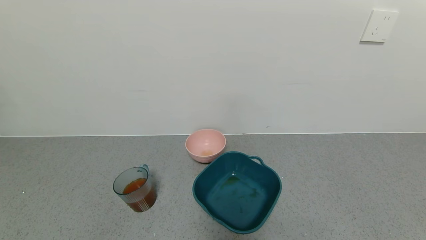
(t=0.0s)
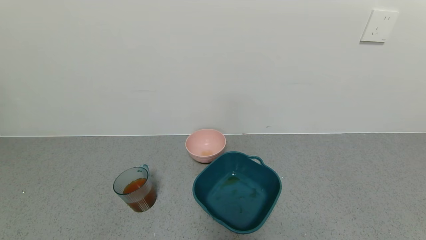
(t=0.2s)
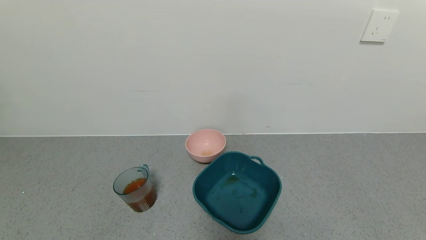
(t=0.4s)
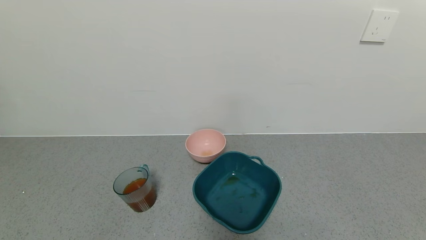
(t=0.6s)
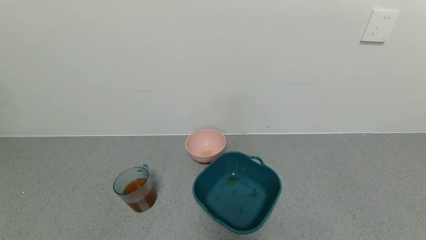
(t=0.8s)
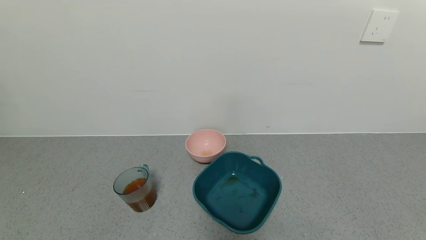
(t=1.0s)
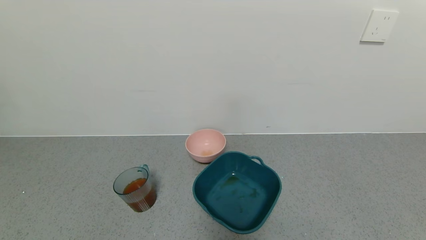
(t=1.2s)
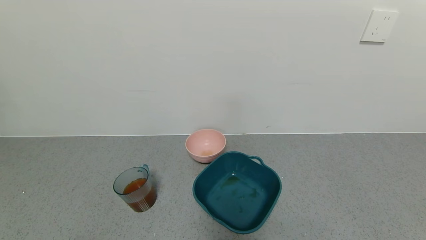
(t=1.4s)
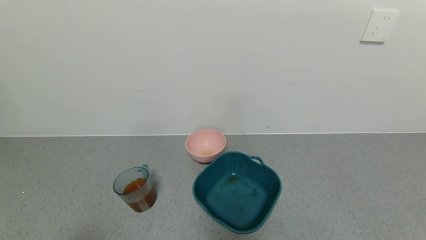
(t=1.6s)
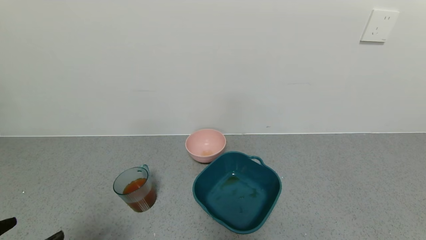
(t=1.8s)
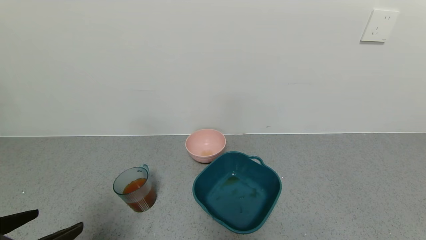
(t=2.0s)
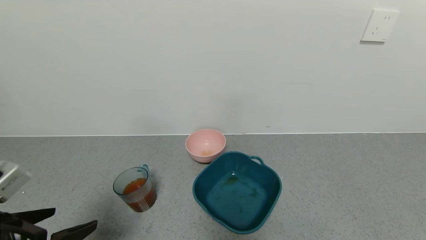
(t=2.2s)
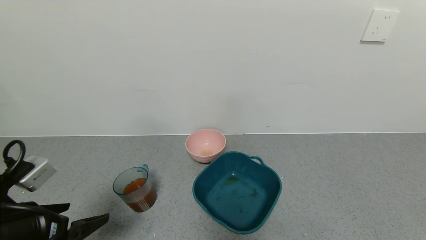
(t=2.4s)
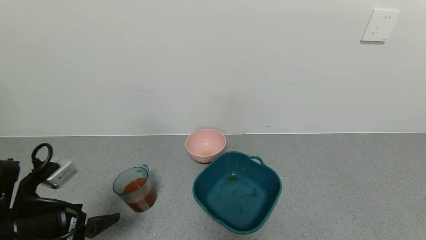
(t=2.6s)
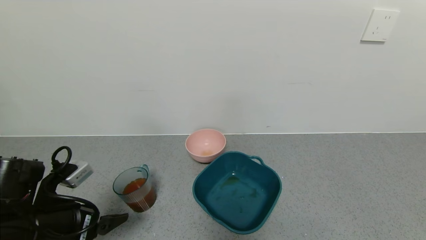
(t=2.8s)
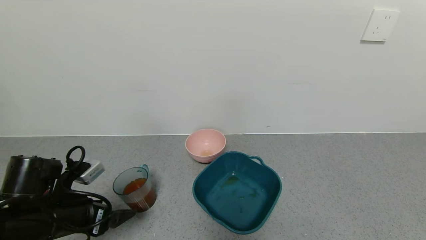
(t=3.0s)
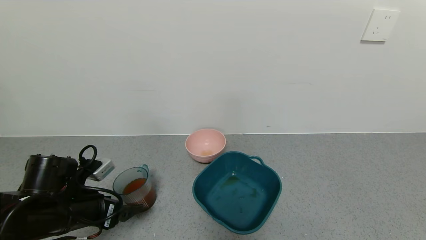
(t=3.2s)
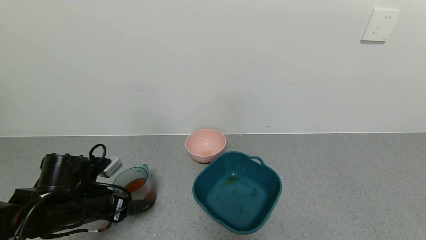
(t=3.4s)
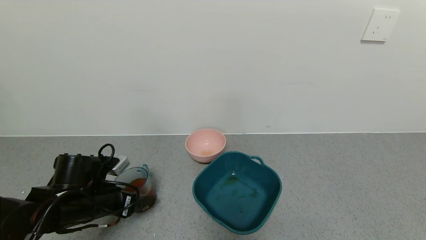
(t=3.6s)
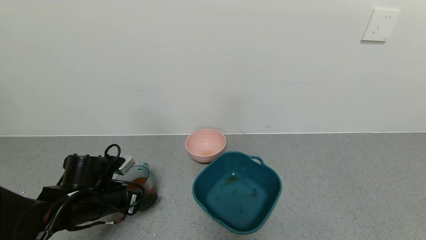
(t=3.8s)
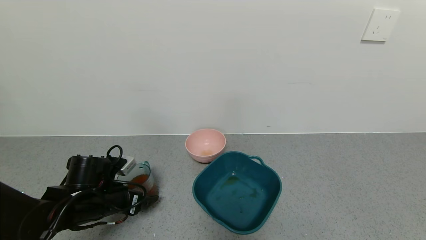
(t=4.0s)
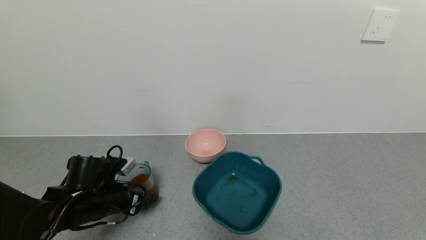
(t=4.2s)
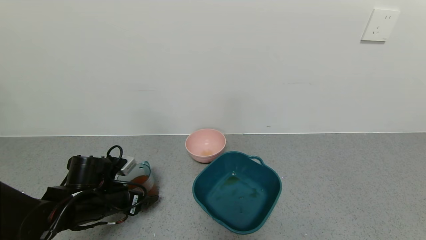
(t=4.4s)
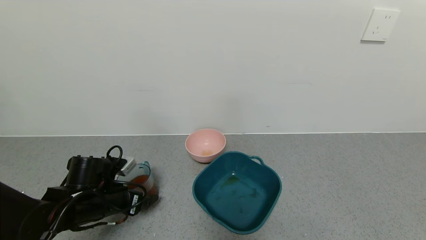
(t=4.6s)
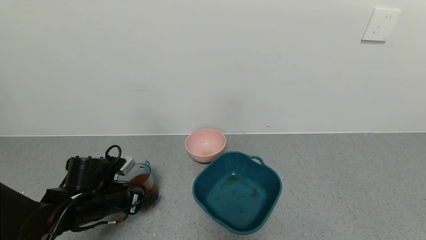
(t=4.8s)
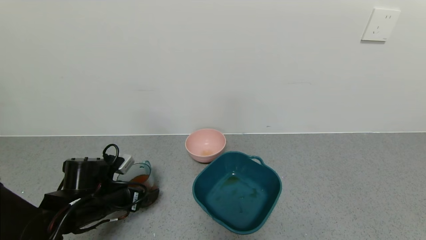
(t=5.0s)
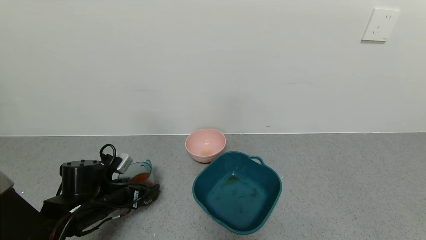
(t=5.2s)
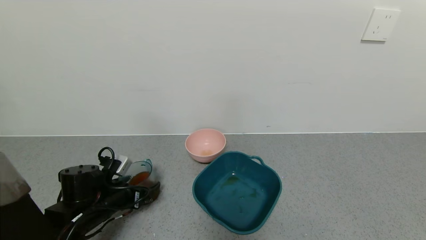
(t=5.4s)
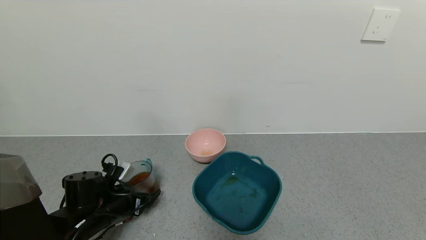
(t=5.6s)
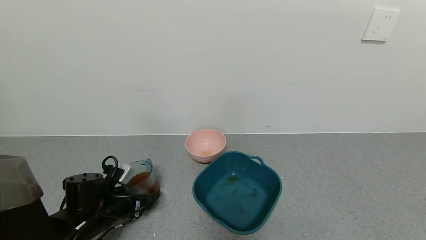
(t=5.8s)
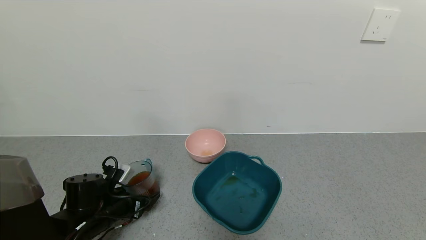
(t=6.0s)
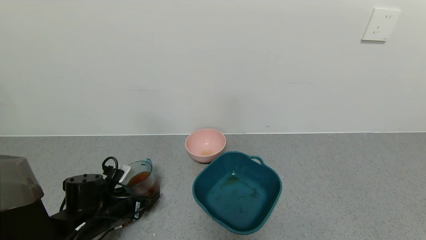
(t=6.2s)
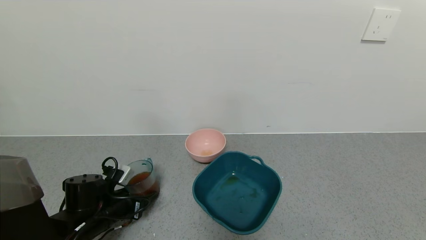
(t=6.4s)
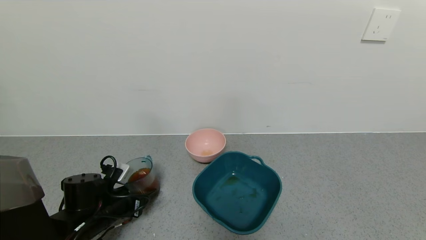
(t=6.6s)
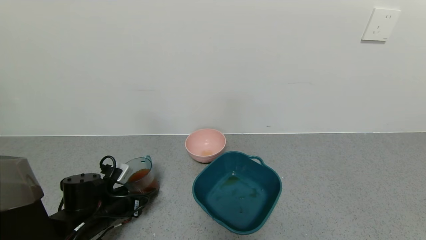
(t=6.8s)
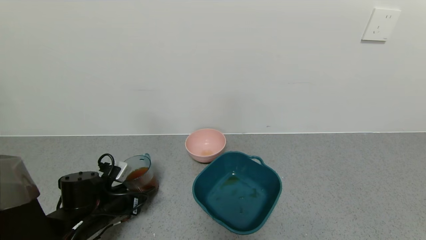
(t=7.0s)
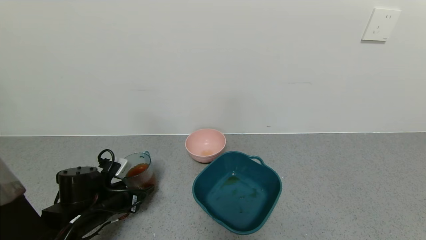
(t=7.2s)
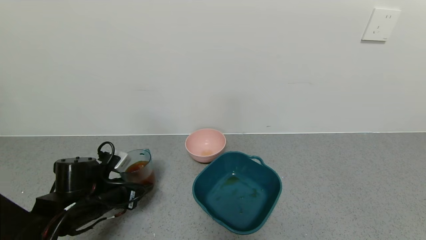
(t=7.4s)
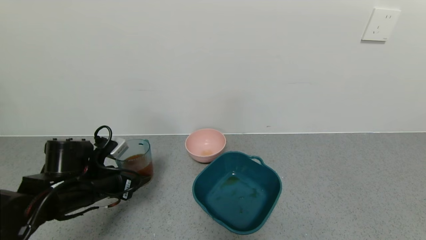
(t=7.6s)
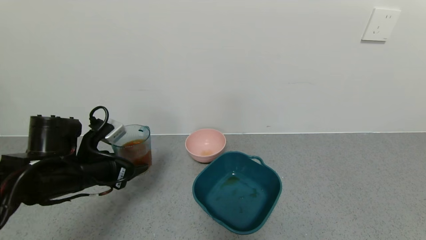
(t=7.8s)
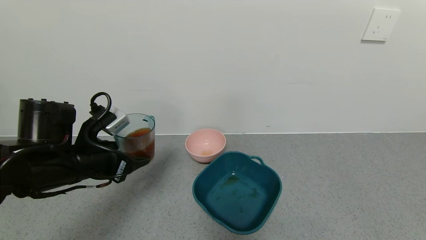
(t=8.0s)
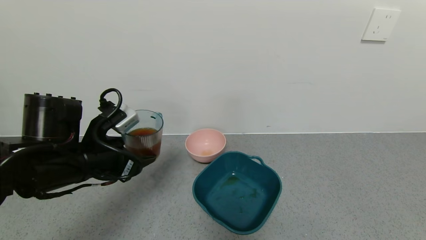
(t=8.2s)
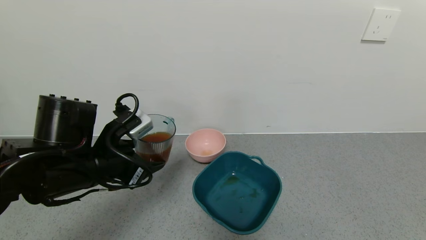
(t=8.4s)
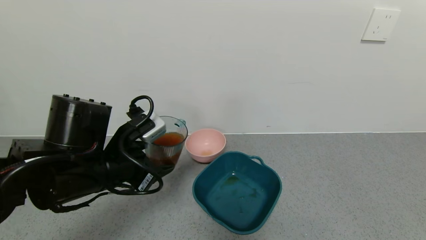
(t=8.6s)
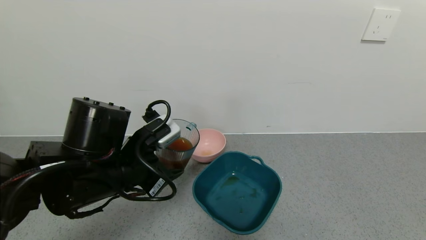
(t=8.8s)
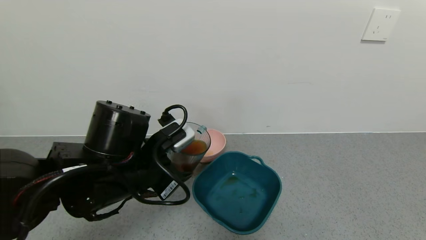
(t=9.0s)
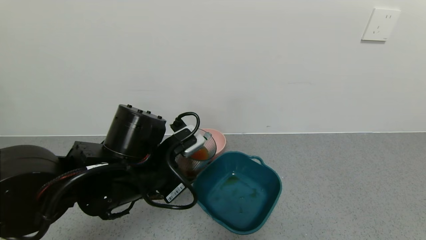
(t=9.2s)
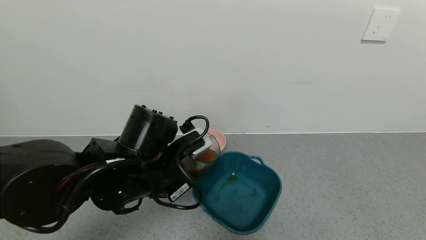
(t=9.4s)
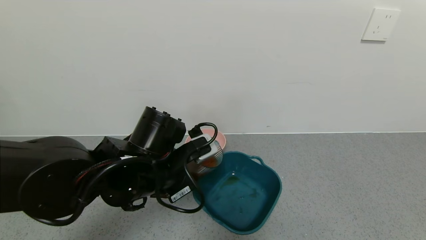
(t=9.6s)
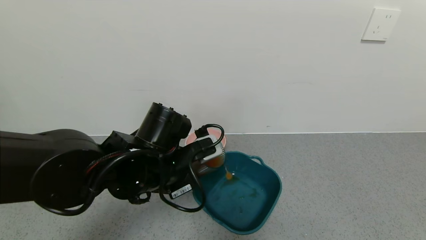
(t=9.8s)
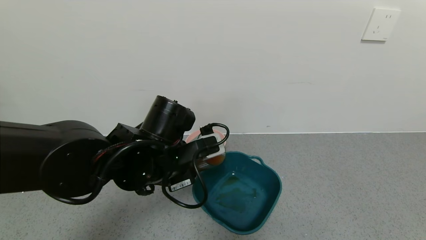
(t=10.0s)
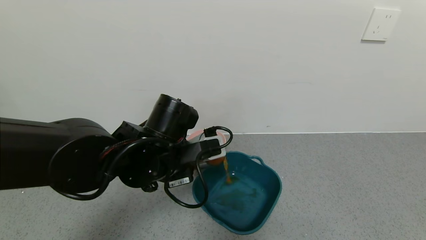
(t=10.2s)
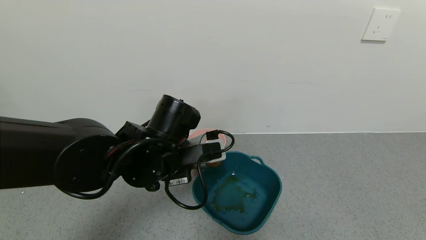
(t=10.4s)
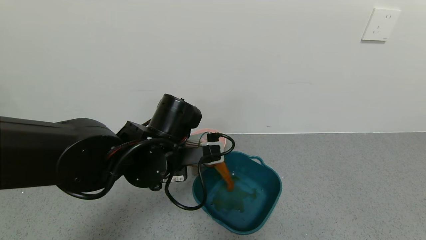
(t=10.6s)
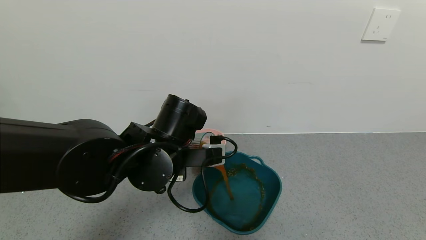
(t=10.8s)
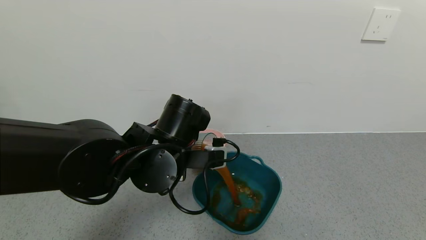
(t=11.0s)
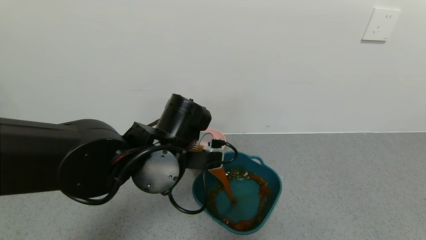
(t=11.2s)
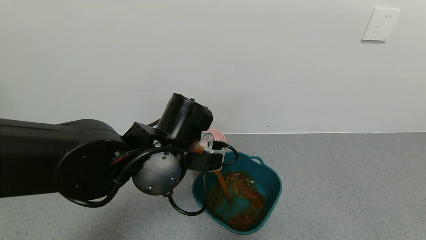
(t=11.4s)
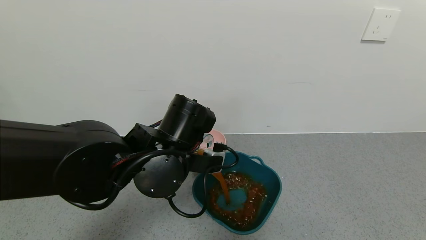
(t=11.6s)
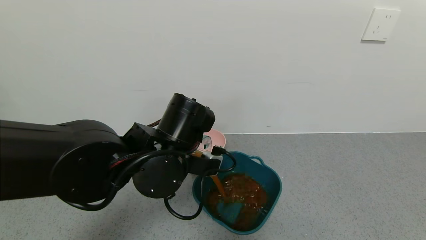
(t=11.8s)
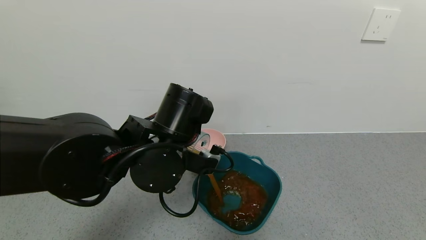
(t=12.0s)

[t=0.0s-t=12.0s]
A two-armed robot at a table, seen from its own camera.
Task of the whole recording: use a gripper to pick up the cup and pour the liquid into a bowl or tray.
Step, t=0.0s to t=7.0s: Grasp the glass of black tea with the left gripper.
t=1.6s to t=3.0s: The left gripper goes about 20 cm forward.
t=3.0s to t=4.4s: The left gripper travels forward and downward by approximately 10 cm.
t=4.4s to t=6.0s: The grippers stay close to where they were, moving slightly.
t=6.0s to t=7.6s: The left gripper shifts approximately 10 cm upward, and closes its fingers.
t=7.6s to t=9.0s: The left gripper is displaced to the right and upward by approximately 15 cm.
t=9.0s to t=10.4s: The left gripper changes place by about 5 cm.

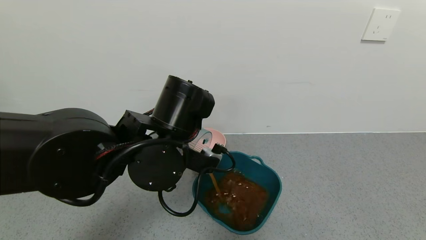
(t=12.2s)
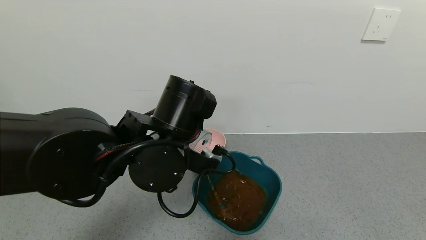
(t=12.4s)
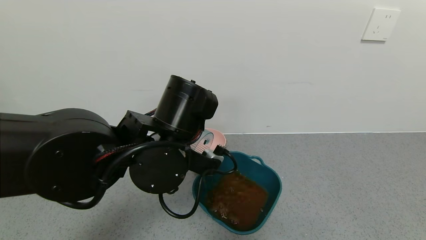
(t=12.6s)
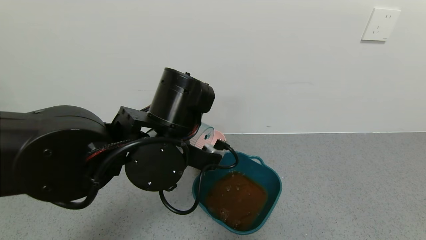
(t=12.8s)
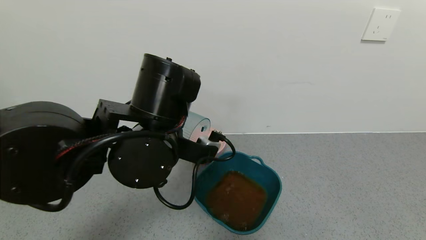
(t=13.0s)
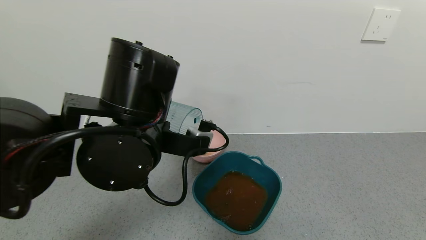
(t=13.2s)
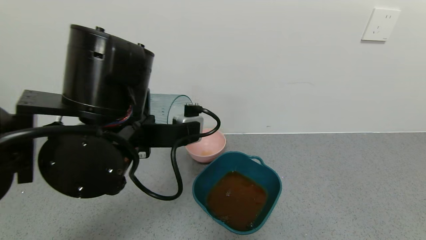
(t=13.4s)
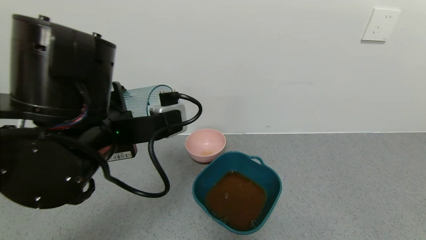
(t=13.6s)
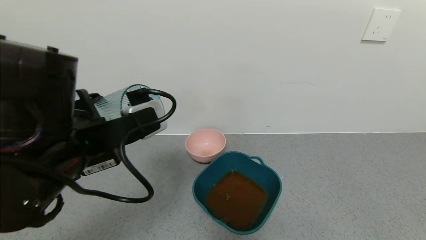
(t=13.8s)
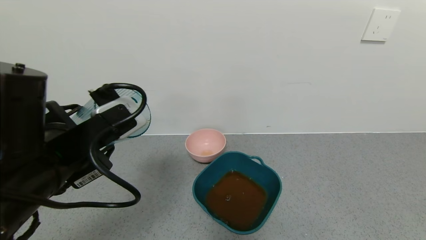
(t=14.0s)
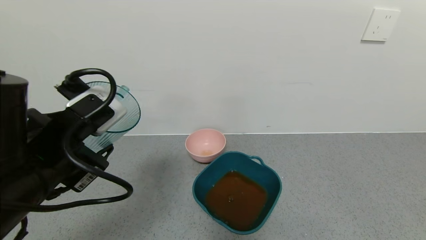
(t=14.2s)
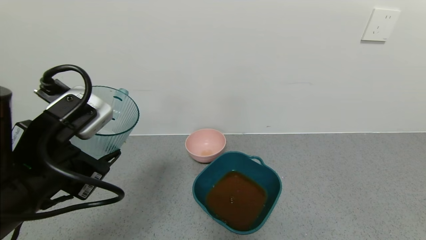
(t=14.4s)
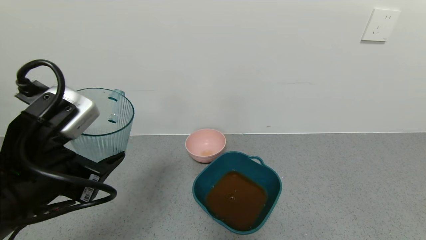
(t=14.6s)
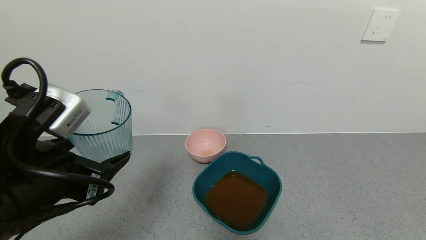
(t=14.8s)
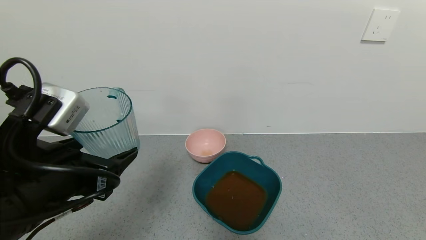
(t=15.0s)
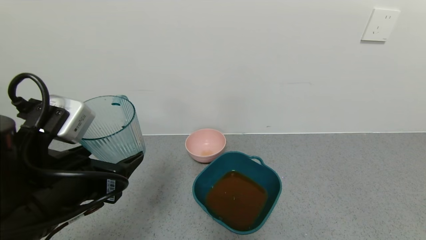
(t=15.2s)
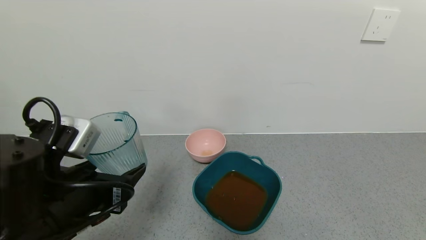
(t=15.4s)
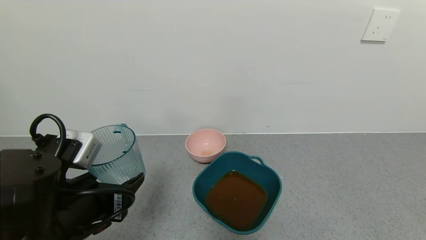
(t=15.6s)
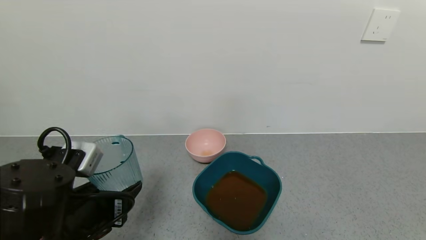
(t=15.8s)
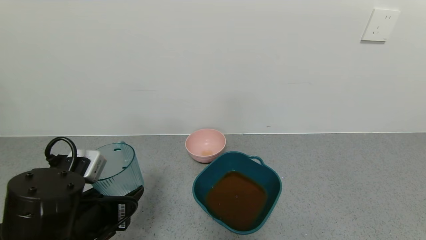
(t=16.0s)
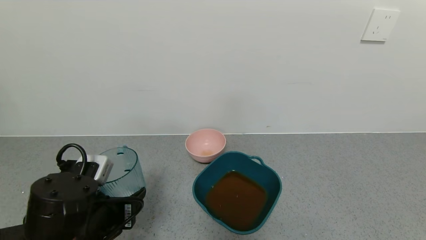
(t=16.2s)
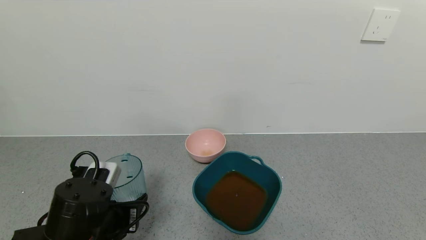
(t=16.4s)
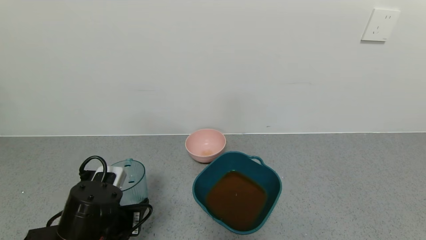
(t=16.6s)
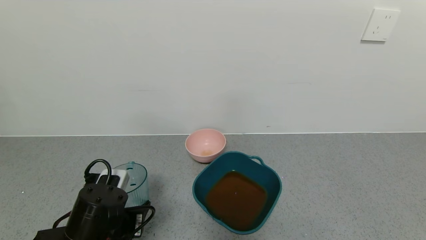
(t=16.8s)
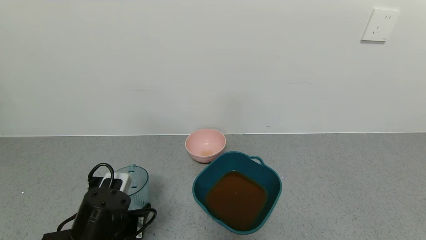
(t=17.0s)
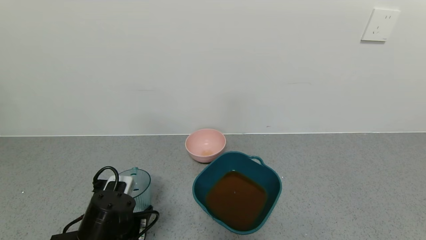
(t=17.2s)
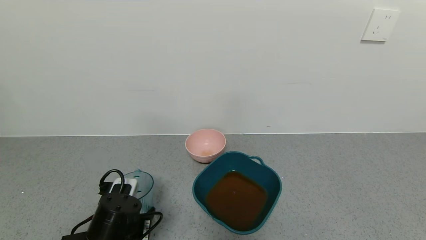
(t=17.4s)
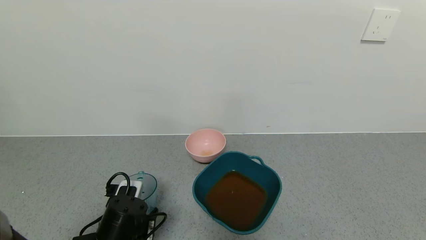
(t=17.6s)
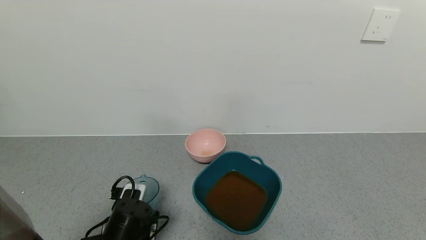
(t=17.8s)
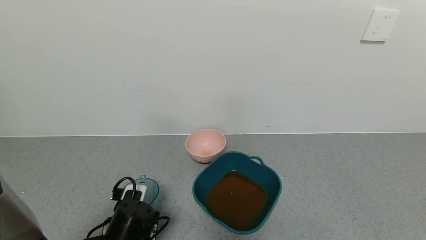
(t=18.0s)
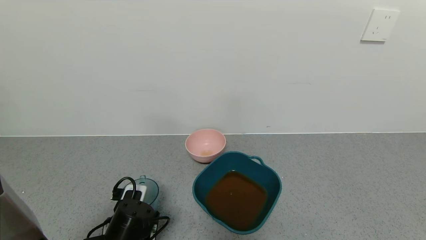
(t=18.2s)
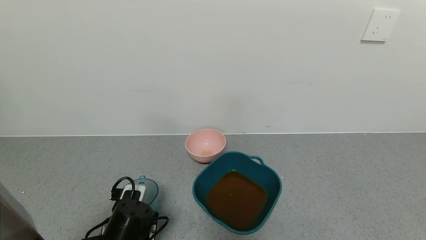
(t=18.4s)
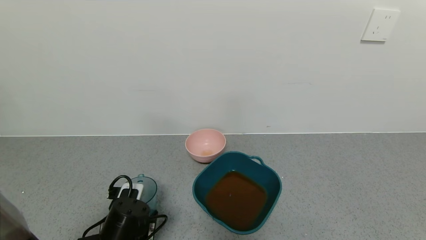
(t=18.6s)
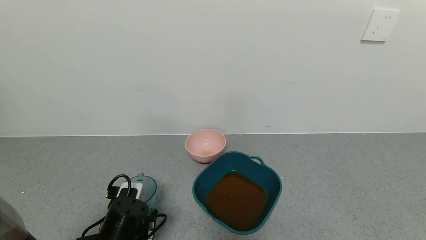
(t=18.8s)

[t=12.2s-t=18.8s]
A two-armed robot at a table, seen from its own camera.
Task of the whole recording: use a gripper to pick up the cup and pour the liquid into a bowl or tray.
t=12.2s to t=13.8s: The left gripper shifts about 10 cm to the left and backward.
t=13.8s to t=15.4s: The left gripper heads downward, covering roughly 5 cm.
t=15.4s to t=17.2s: The left gripper is displaced downward by roughly 15 cm.
t=17.2s to t=18.8s: There are only small adjustments of the grippers.
